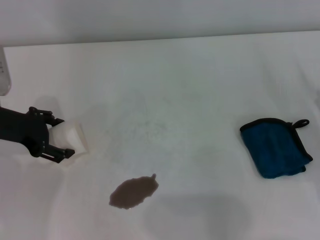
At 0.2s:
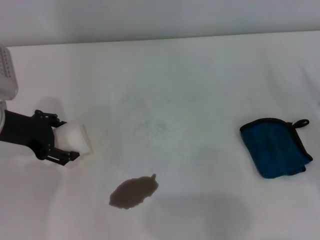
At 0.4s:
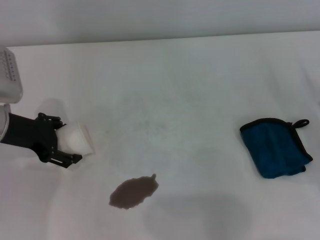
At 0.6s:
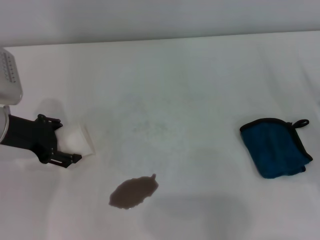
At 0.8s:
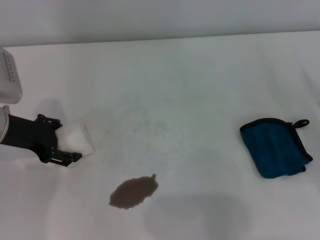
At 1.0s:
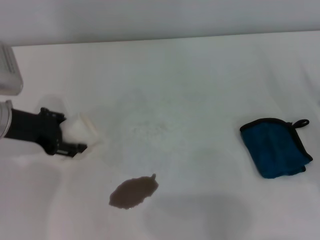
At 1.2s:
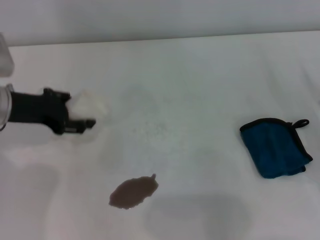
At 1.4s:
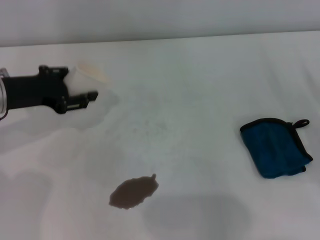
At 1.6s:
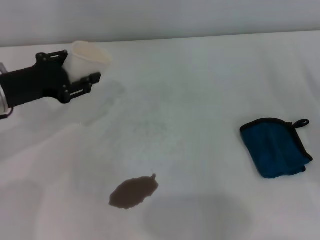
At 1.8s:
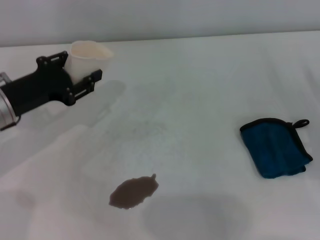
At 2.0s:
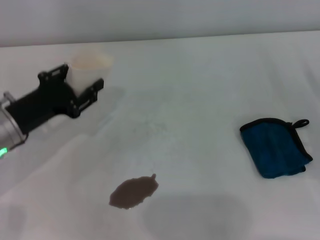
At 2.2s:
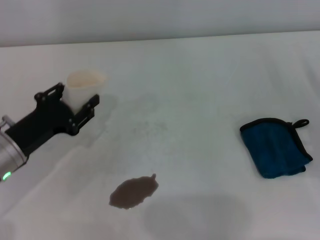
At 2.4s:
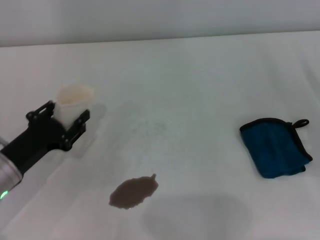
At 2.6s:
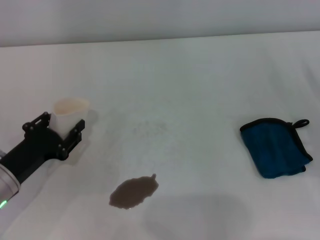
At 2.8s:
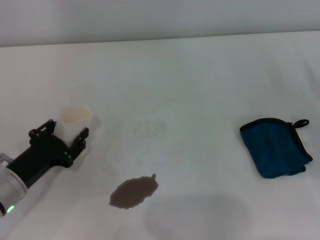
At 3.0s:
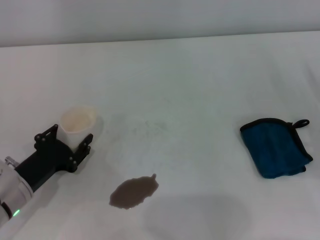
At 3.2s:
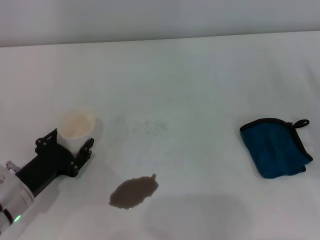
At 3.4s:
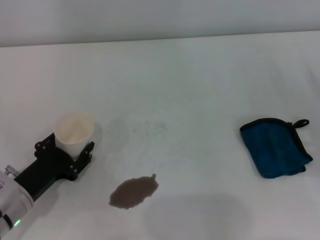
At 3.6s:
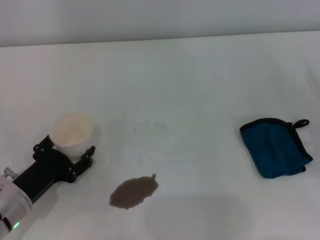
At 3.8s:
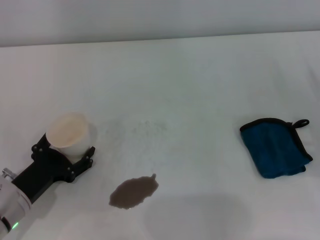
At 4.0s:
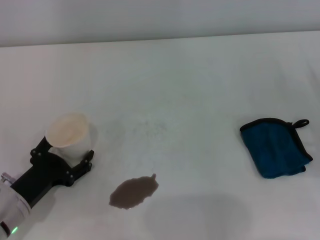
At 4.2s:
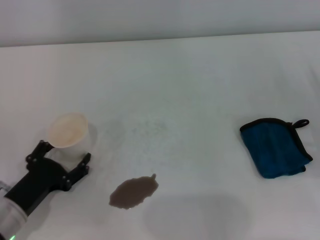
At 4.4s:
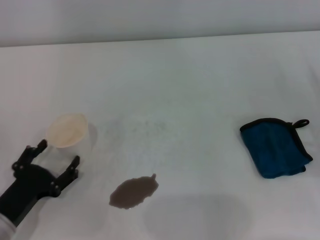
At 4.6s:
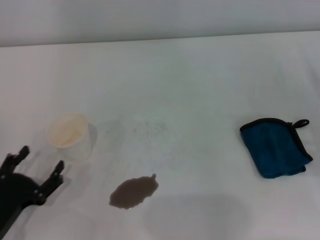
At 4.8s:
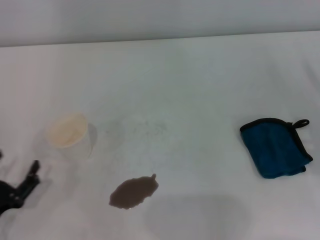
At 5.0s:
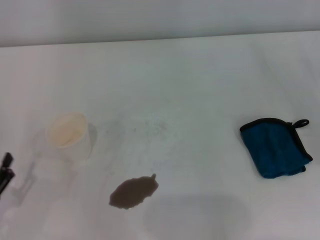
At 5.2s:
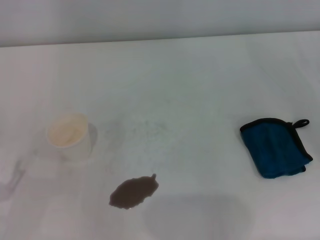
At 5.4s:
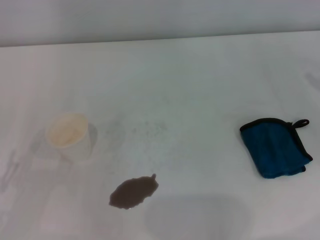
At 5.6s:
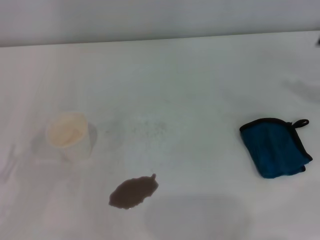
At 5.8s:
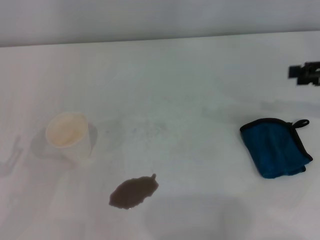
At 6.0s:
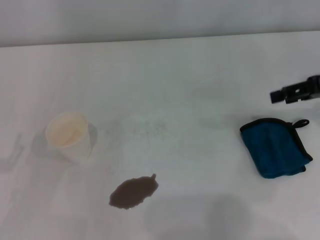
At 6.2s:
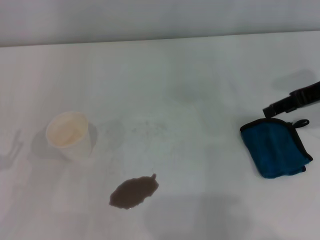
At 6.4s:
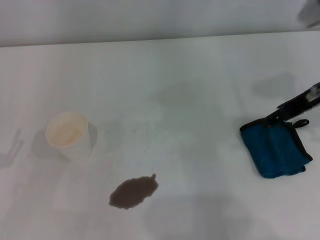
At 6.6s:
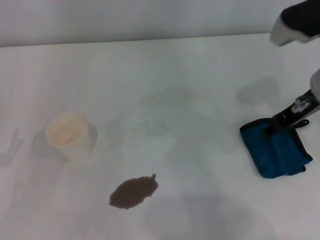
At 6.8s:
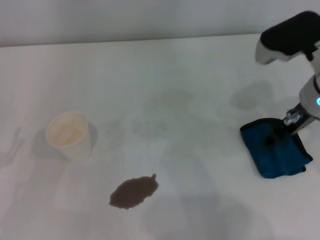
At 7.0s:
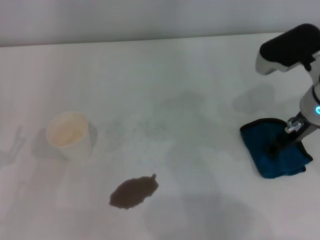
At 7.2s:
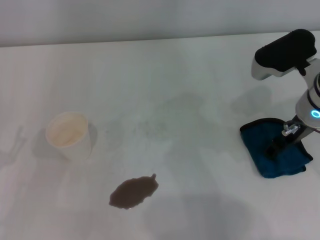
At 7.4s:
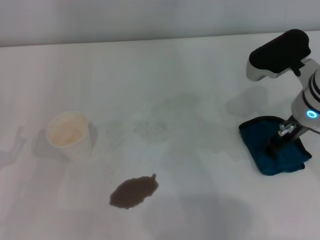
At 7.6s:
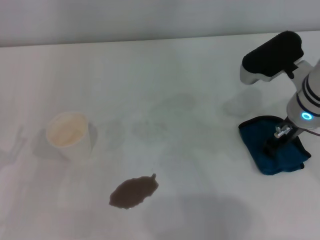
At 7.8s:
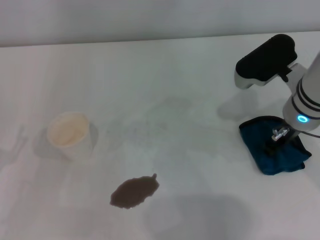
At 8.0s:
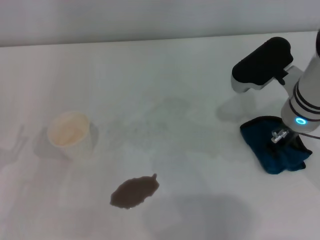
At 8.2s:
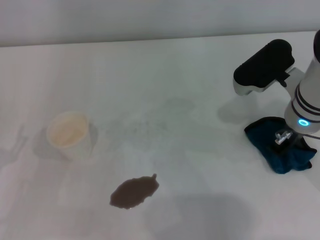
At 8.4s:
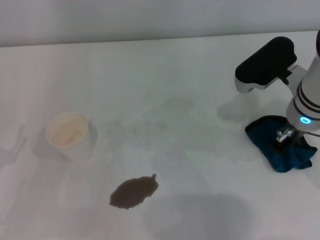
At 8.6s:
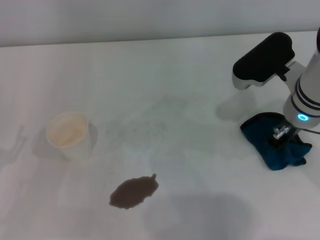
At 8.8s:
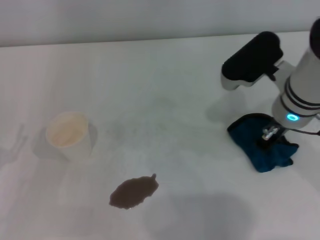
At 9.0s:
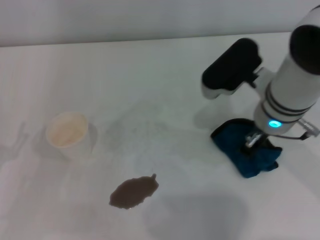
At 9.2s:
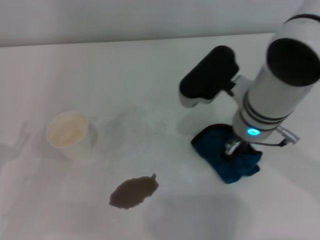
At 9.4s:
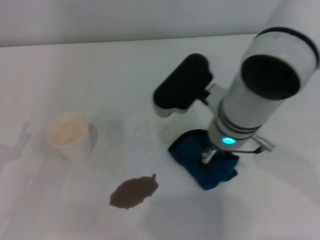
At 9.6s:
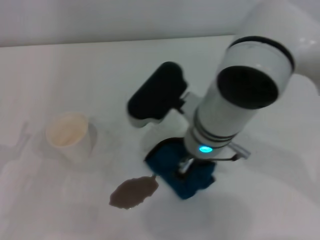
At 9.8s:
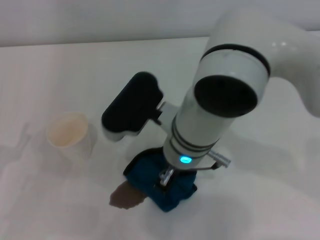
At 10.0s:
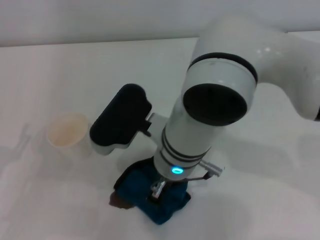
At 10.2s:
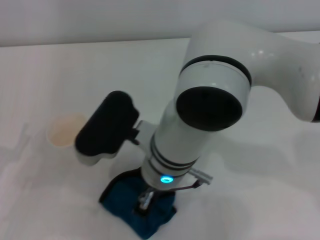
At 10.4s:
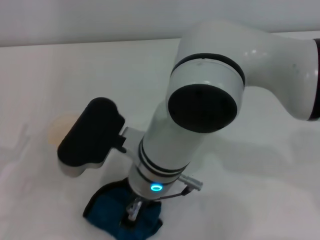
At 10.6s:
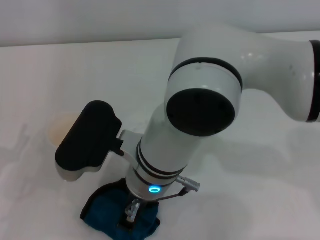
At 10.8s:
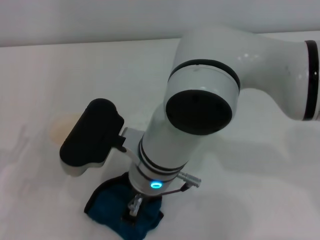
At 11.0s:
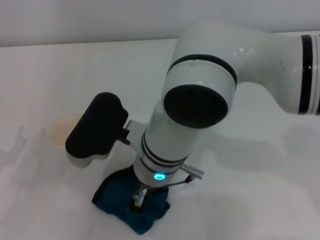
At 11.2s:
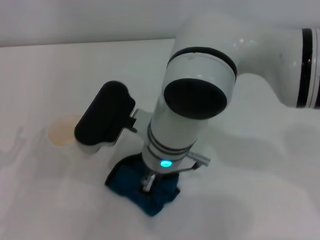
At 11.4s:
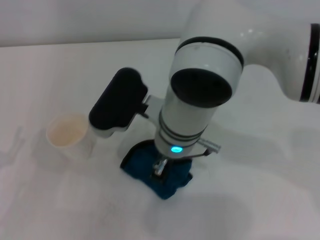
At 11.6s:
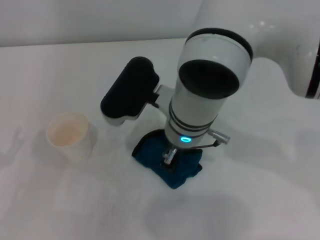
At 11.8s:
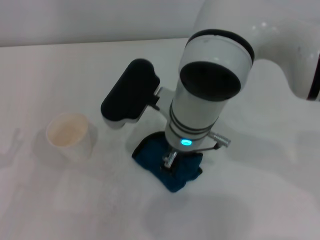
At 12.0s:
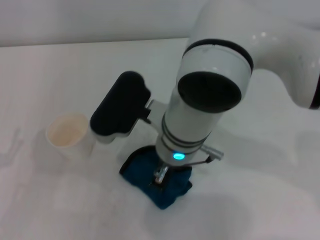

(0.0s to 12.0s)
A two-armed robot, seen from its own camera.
Step, 1.0s - 3.8s: Stand the paper cup upright with the left gripper.
Step, 4.0s - 8.0s: Grasp the rag with the right gripper.
0.0s - 1.6s: The left gripper closes.
1.6s - 3.0s: The left gripper travels downward and backward by some 15 cm.
3.0s - 4.4s: The left gripper is displaced backward by approximately 5 cm, and opens up.
4.4s - 6.0s: The left gripper travels to the left and upward by approximately 10 cm; the right gripper heads upward and forward, covering about 20 cm.
6.0s - 7.6s: The right gripper moves to the left, some 15 cm.
7.6s - 9.0s: The right gripper shifts roughly 5 cm to the left, and closes.
9.0s - 10.4s: The right gripper goes roughly 15 cm to the left.

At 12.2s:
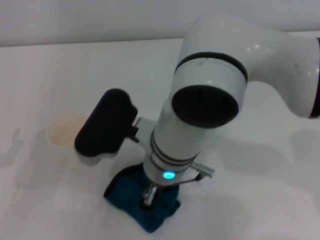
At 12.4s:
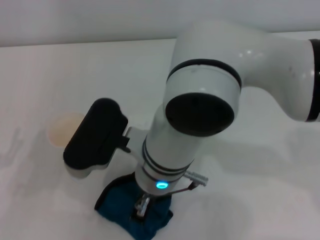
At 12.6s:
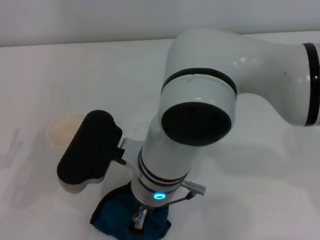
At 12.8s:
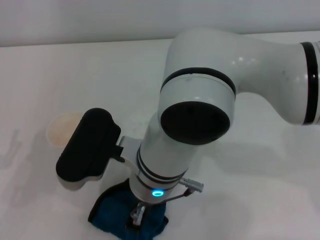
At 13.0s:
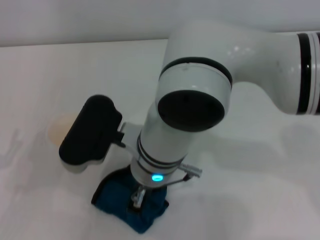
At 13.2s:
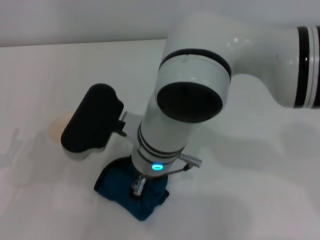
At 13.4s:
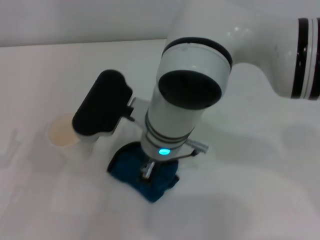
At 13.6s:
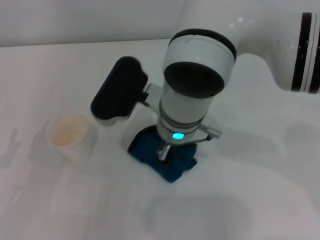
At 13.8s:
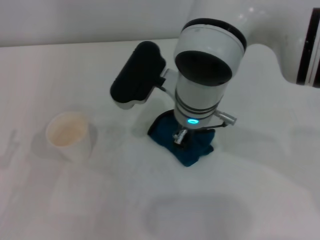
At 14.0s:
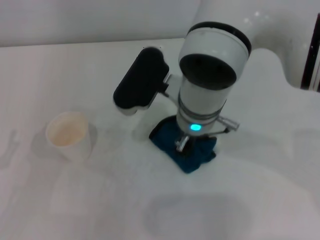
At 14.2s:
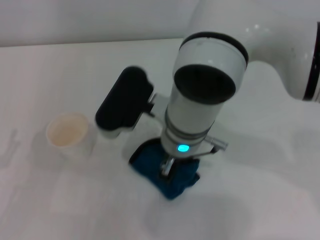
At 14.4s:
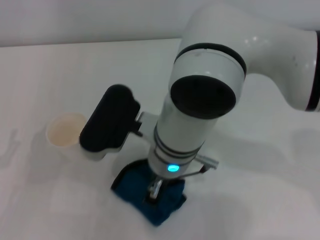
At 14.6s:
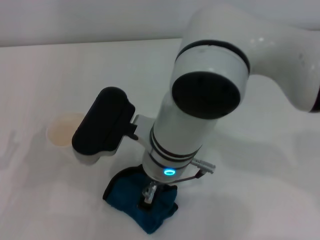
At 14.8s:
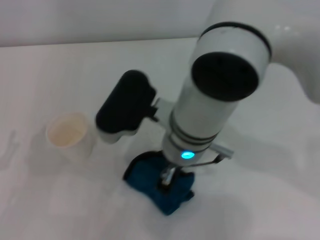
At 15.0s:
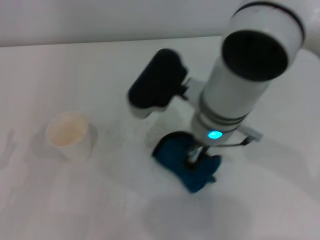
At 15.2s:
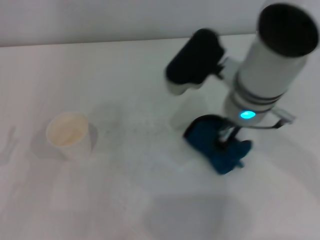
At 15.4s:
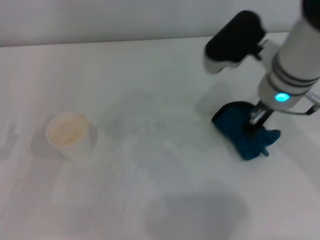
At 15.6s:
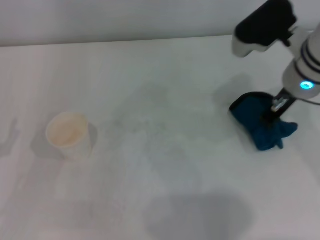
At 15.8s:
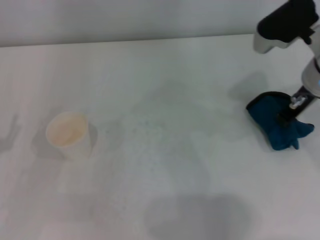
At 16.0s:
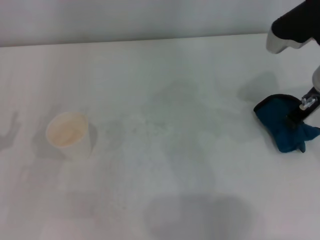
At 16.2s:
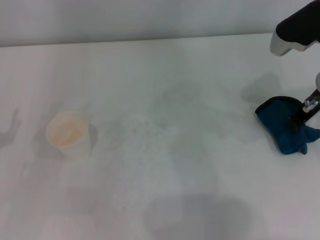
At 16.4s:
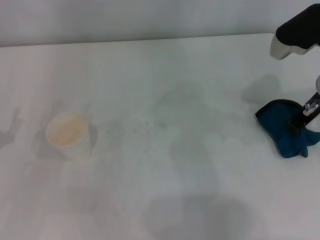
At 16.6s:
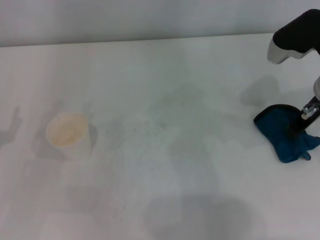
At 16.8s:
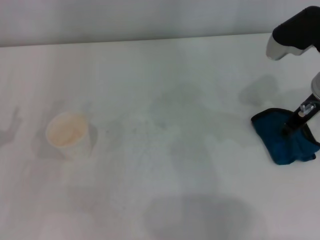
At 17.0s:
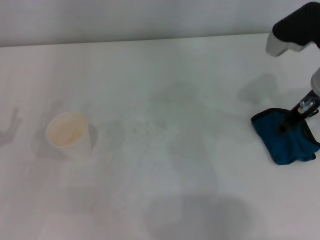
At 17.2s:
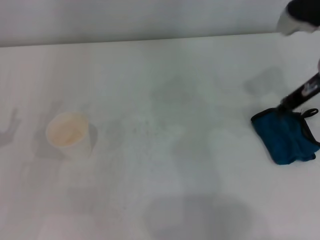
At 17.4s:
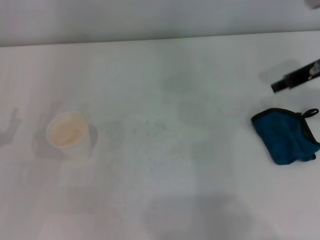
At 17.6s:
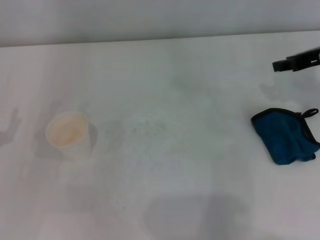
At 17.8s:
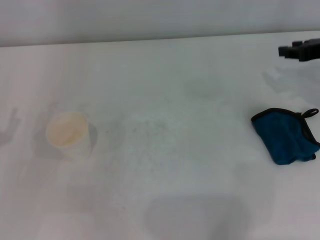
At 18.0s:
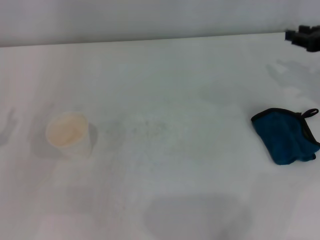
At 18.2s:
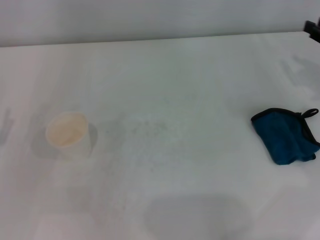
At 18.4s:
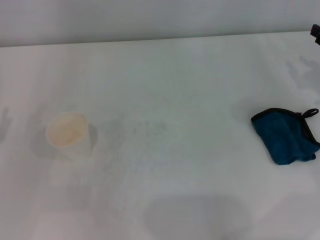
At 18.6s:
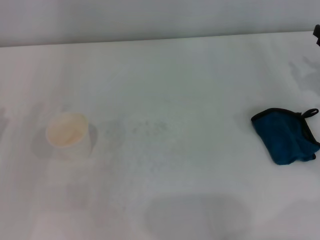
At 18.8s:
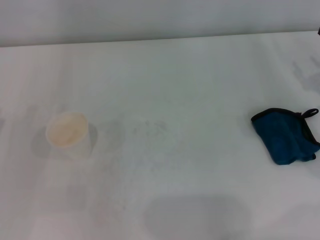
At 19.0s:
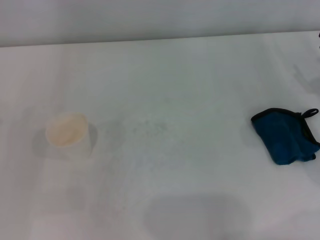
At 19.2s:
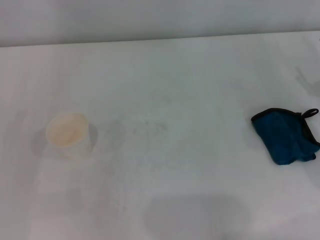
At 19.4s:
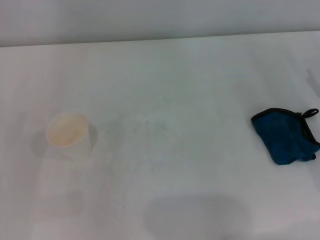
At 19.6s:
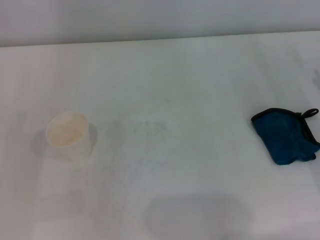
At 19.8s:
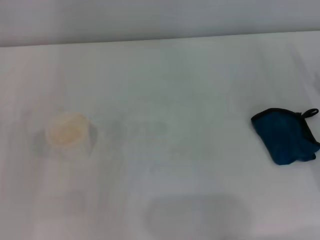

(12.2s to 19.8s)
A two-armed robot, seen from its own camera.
Step, 12.2s - 15.8s: Wipe the stains off the table with the right gripper.
Step, 16.0s - 16.6s: Place the rag on the table with the right gripper.
12.2s - 13.8s: The right gripper is displaced forward by roughly 5 cm.
13.8s - 15.2s: The right gripper moves to the right, roughly 5 cm.
15.2s - 16.8s: The right gripper travels to the right by some 15 cm.
16.8s - 18.2s: The right gripper is displaced to the right by some 15 cm, and opens.

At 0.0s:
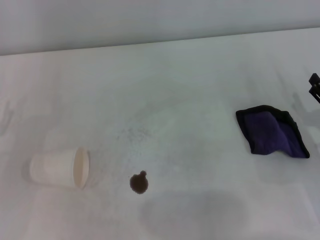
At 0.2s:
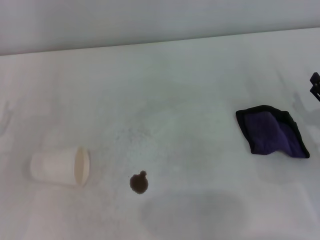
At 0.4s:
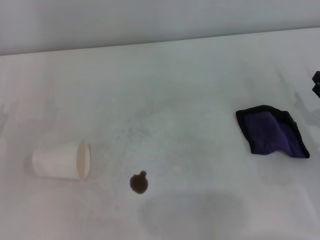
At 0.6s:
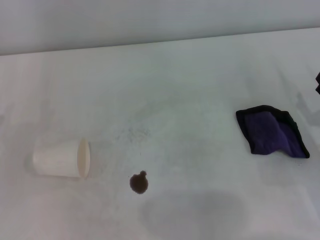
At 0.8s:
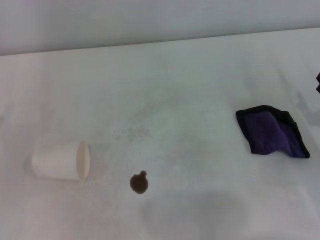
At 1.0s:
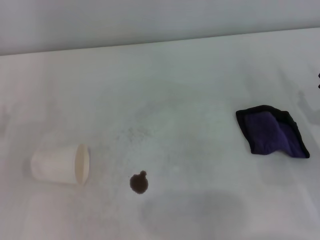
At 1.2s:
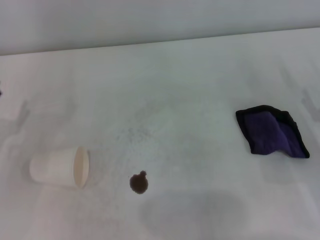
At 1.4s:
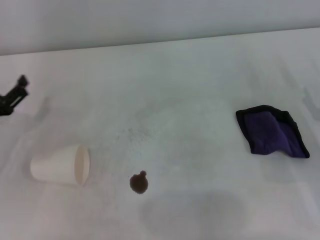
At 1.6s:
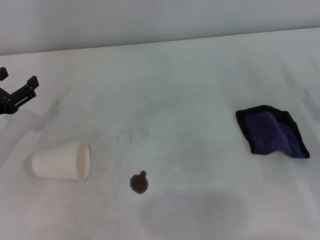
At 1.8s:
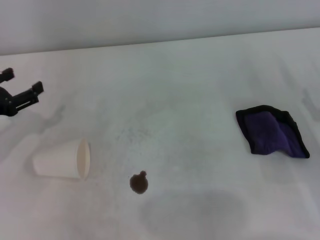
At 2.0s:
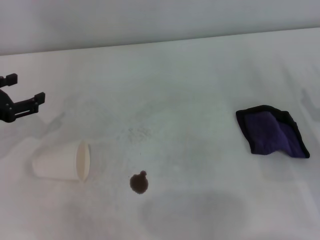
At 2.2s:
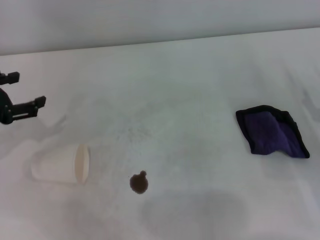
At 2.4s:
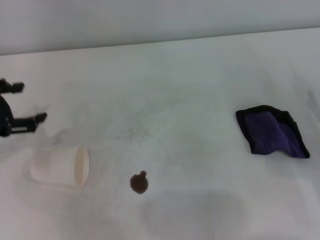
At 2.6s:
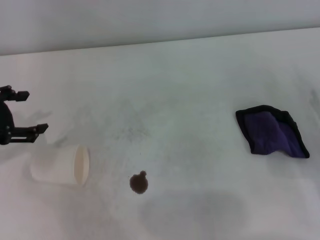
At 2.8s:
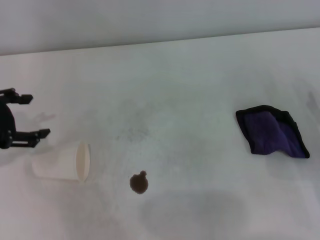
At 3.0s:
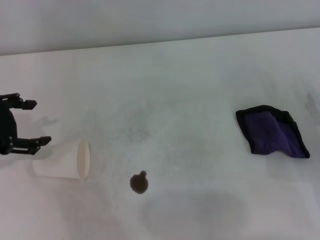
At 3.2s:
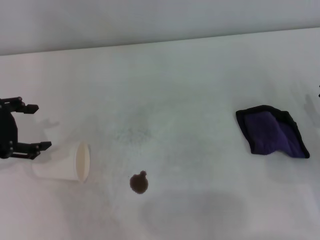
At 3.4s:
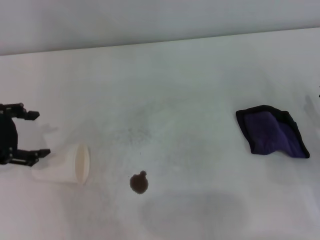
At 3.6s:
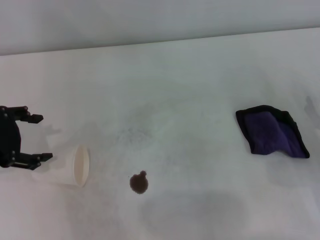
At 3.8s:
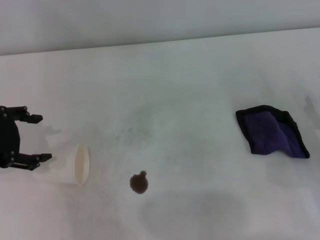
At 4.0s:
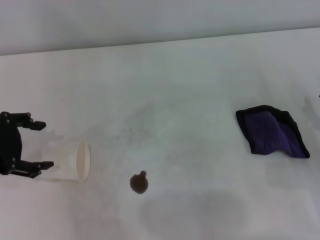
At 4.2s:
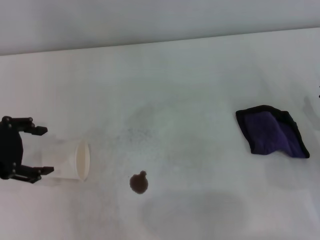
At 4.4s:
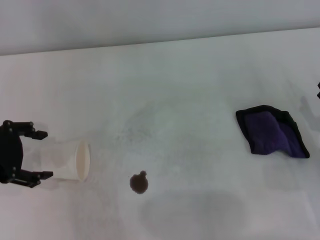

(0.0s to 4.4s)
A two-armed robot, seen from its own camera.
0.0s - 1.4s: The grippers move only a little.
1.4s - 3.0s: The left gripper goes some 10 cm upward.
3.0s - 4.4s: The grippers make only small movements.
